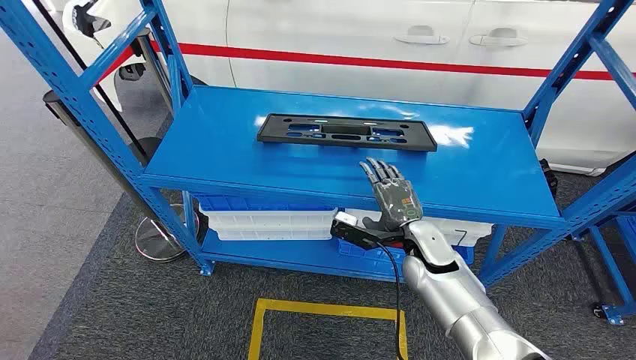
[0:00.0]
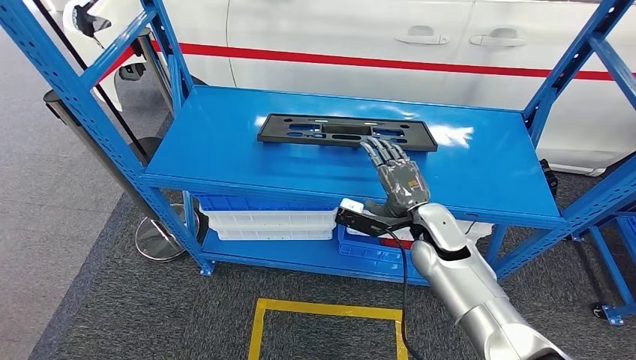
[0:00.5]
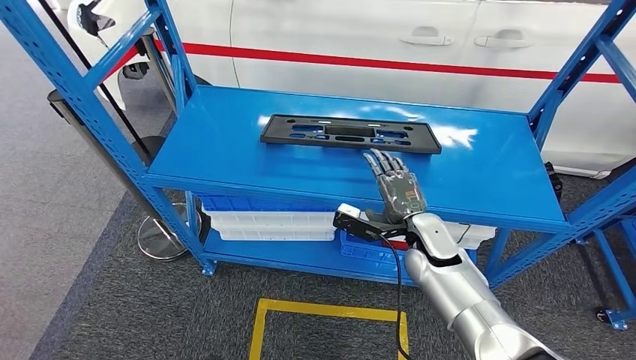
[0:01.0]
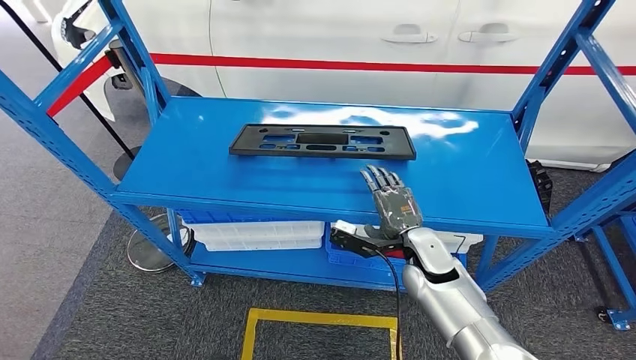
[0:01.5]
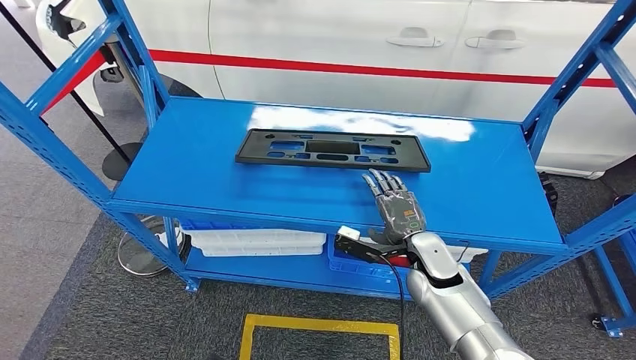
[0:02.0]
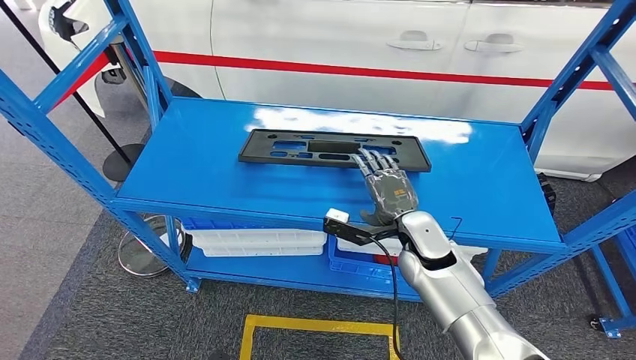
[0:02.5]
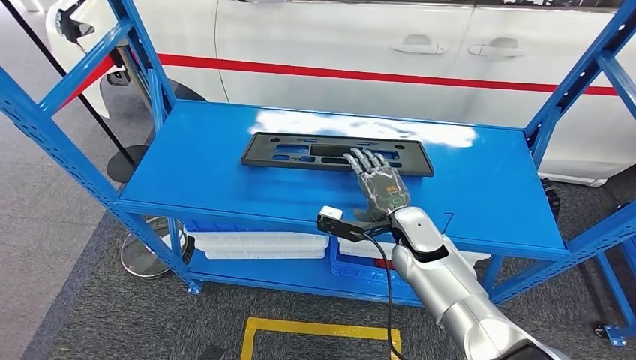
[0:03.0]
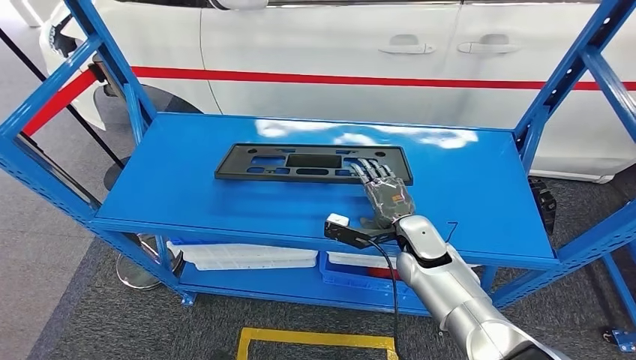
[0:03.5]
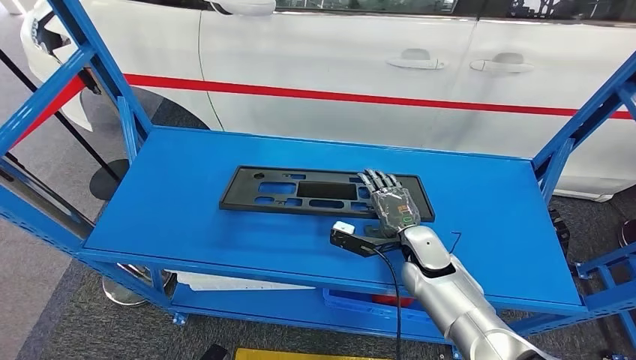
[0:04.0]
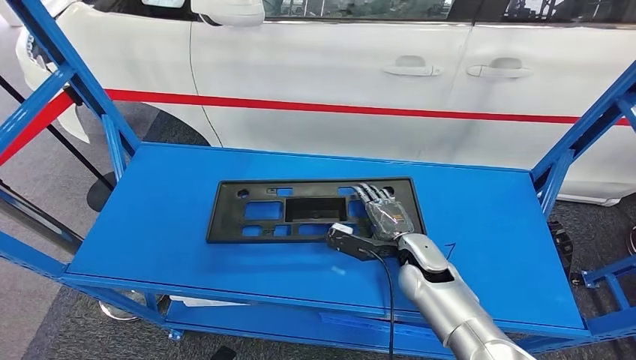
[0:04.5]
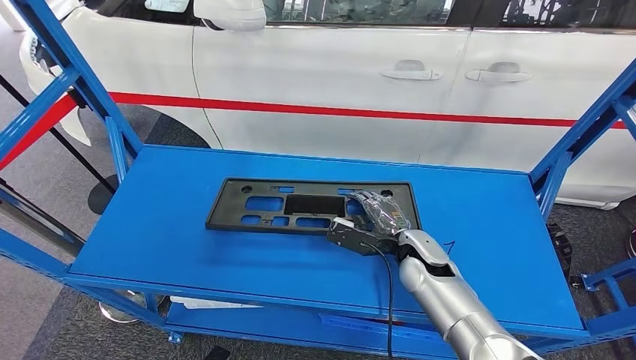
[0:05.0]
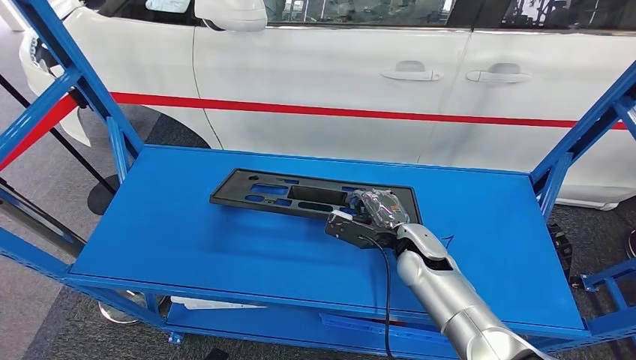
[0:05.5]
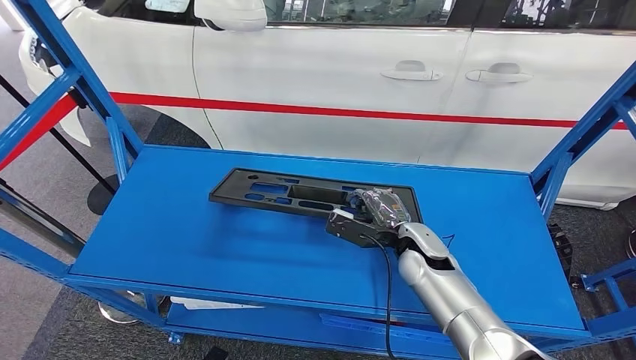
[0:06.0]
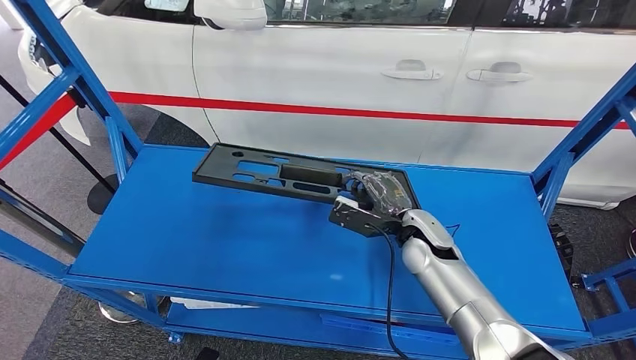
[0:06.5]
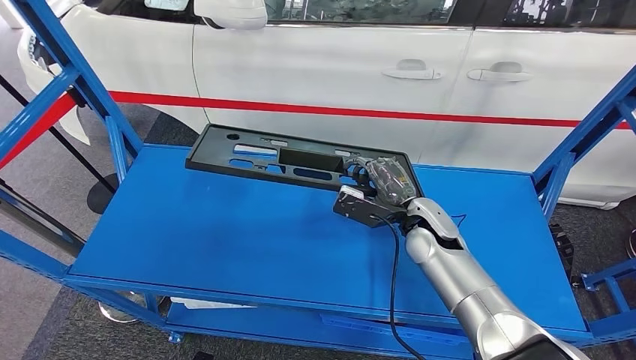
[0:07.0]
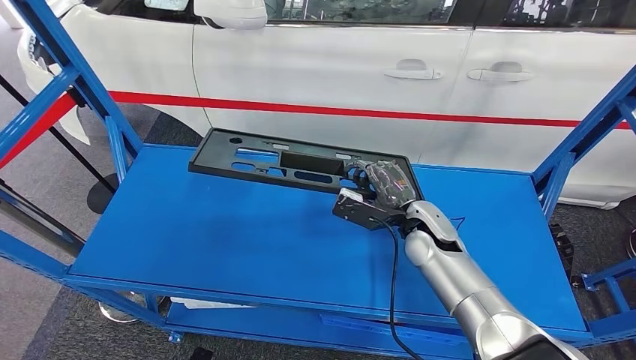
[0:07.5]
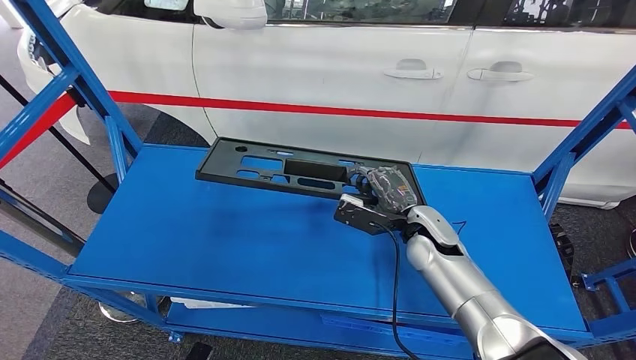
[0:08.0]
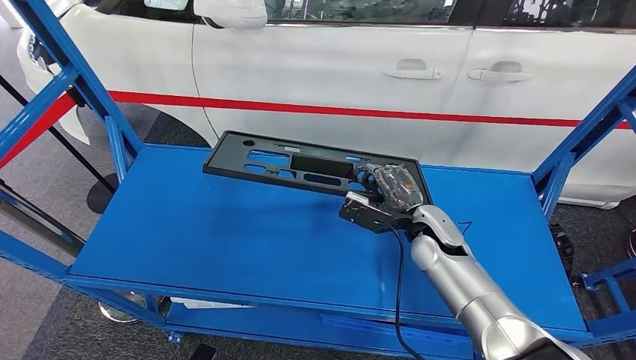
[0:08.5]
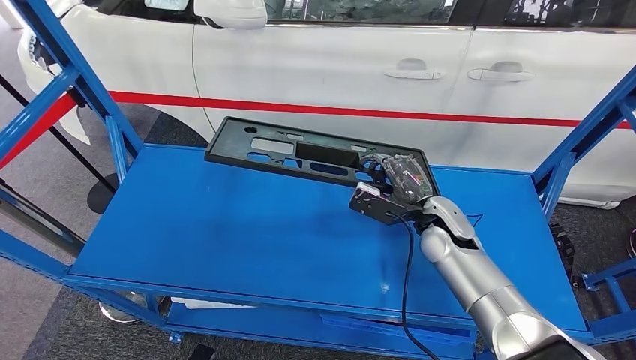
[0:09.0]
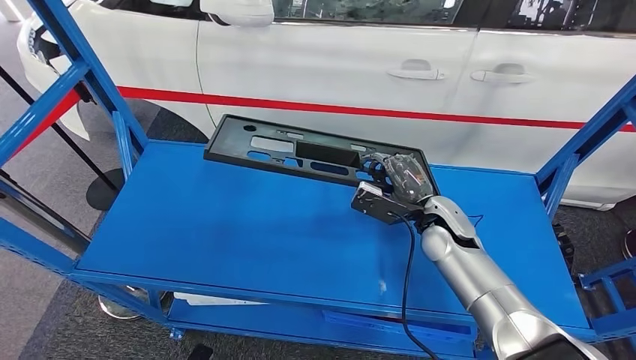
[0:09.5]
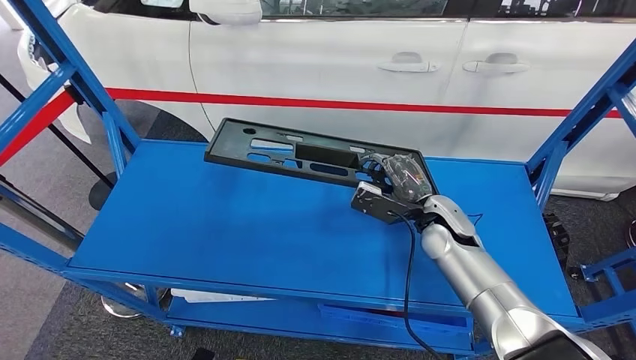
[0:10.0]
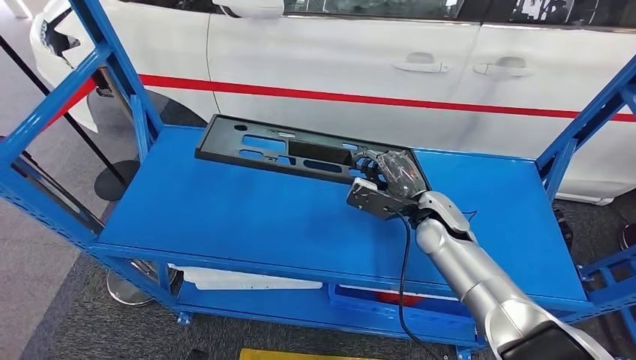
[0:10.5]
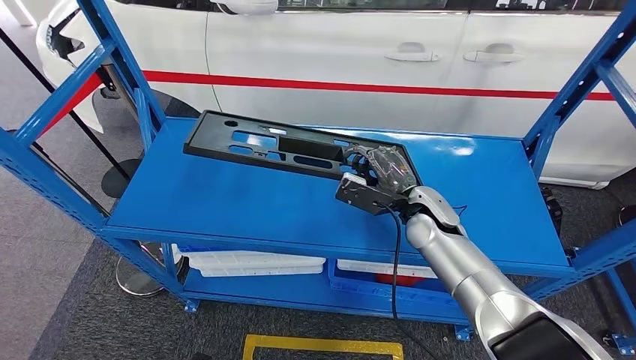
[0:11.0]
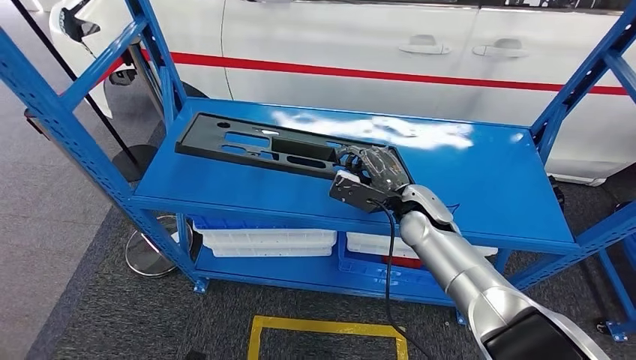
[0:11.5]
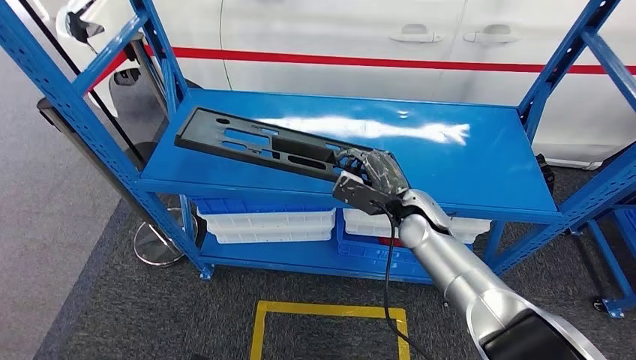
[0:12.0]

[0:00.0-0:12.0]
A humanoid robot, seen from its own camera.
Step, 0:00.0 to 0:07.5: Pick up the large material from the shelf.
0:06.0 to 0:08.0: The hands move only a little.

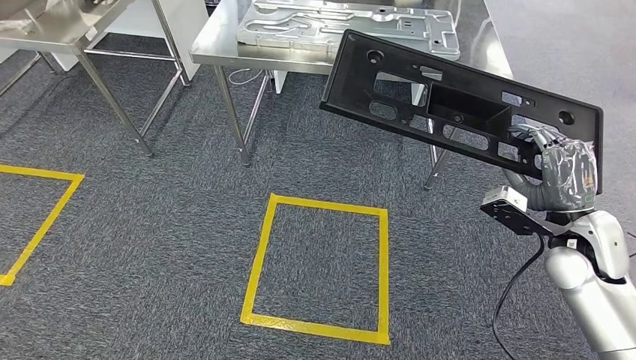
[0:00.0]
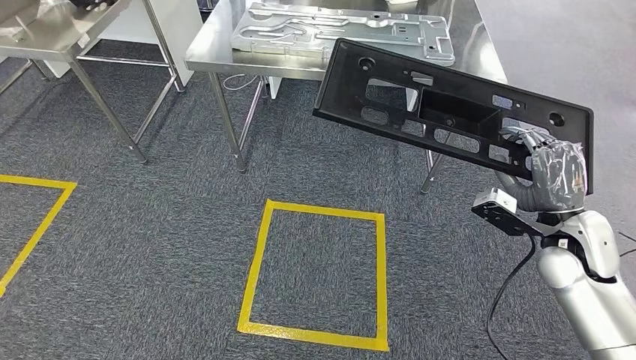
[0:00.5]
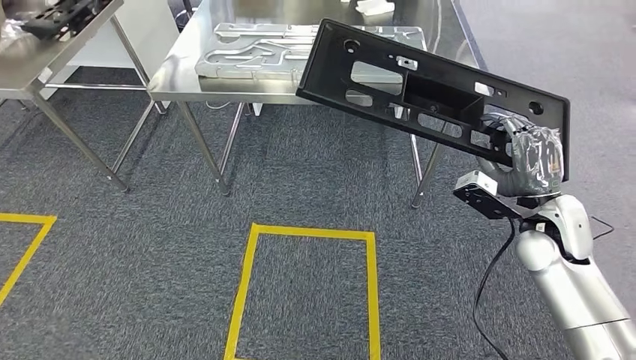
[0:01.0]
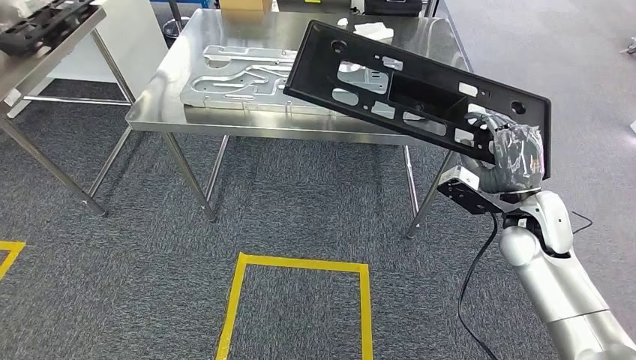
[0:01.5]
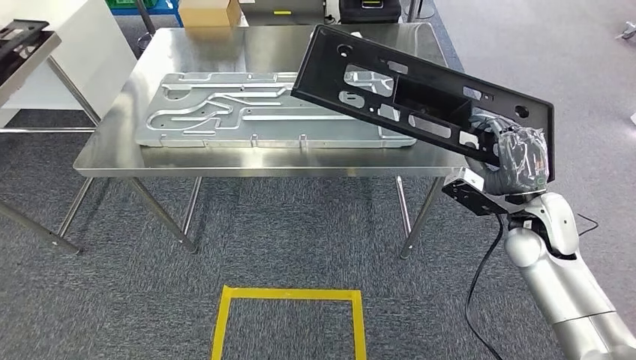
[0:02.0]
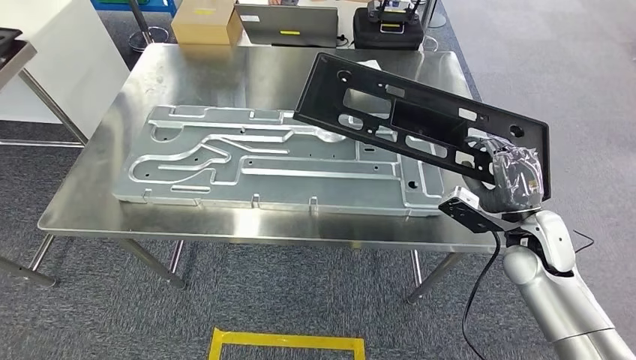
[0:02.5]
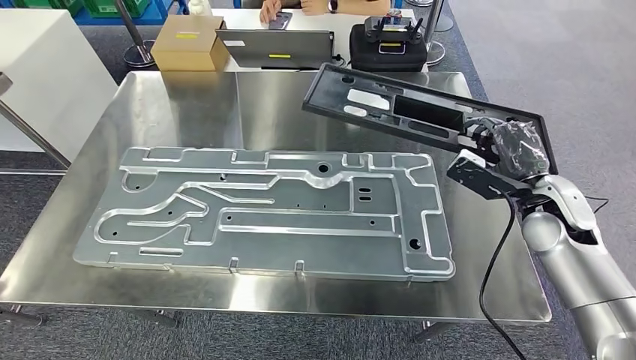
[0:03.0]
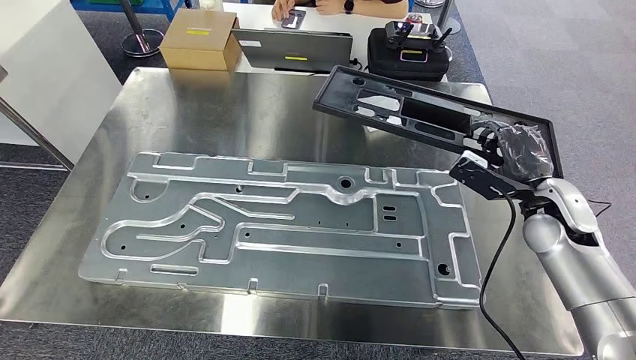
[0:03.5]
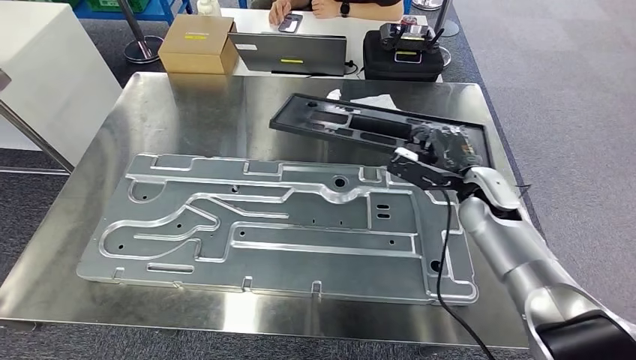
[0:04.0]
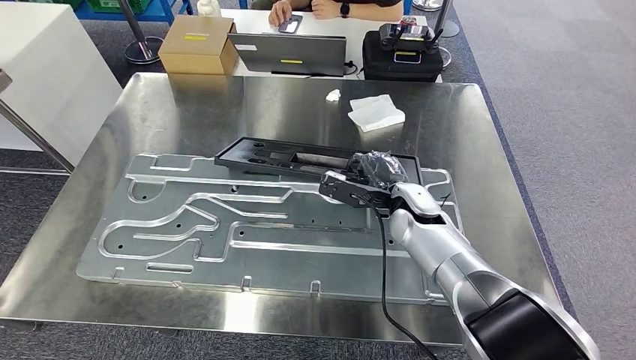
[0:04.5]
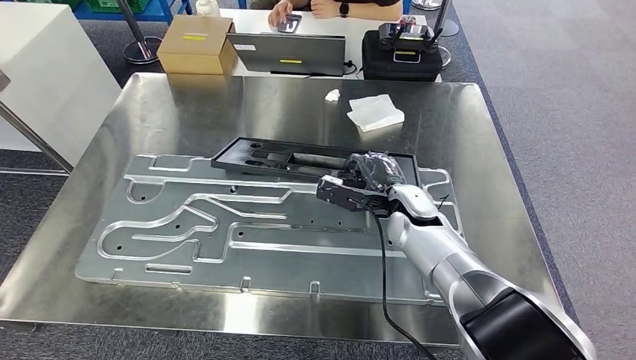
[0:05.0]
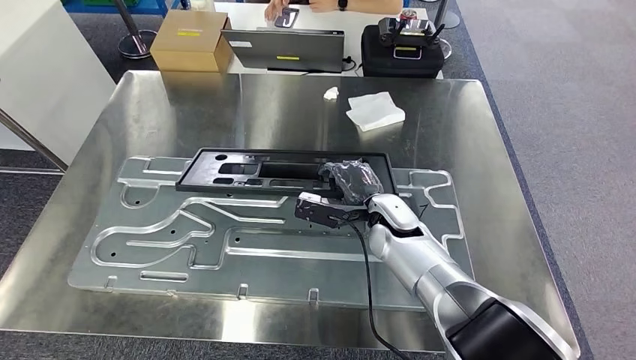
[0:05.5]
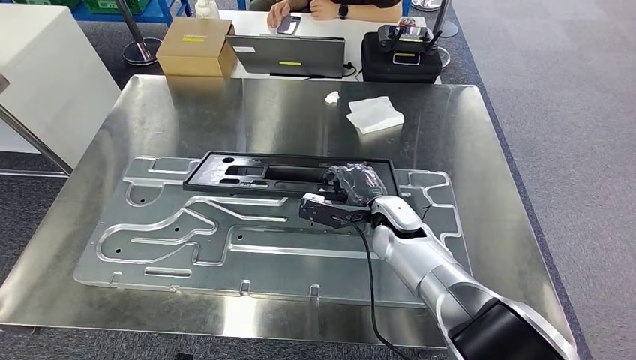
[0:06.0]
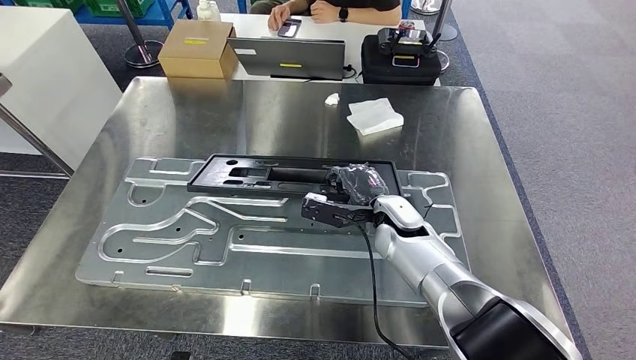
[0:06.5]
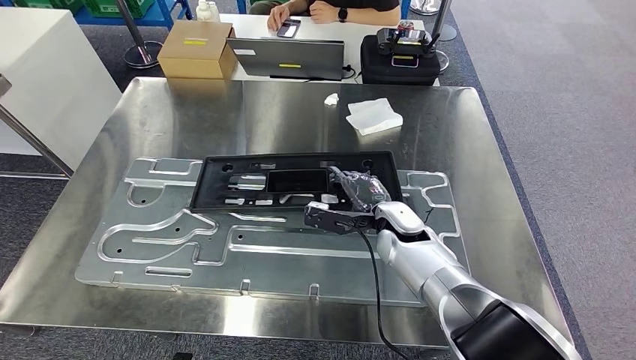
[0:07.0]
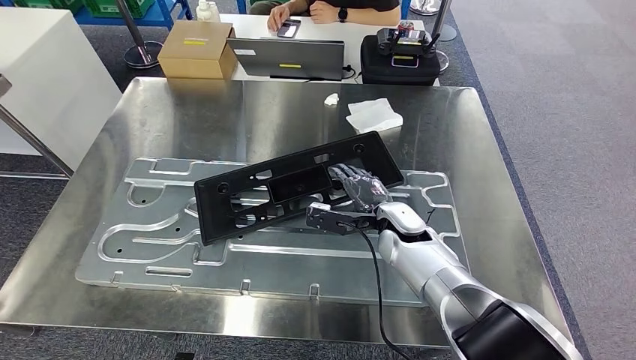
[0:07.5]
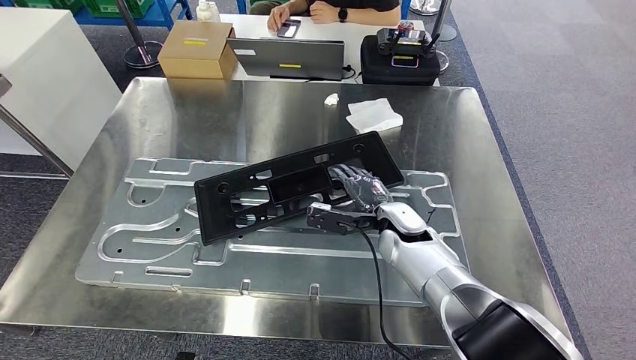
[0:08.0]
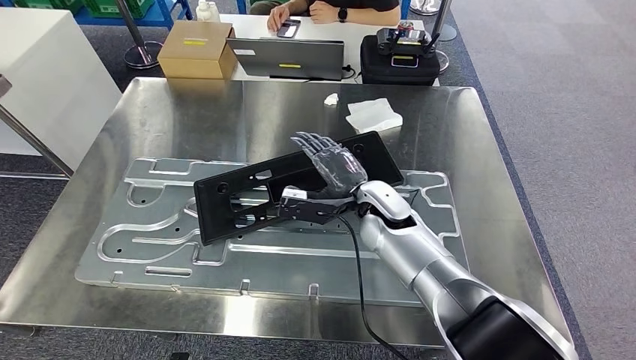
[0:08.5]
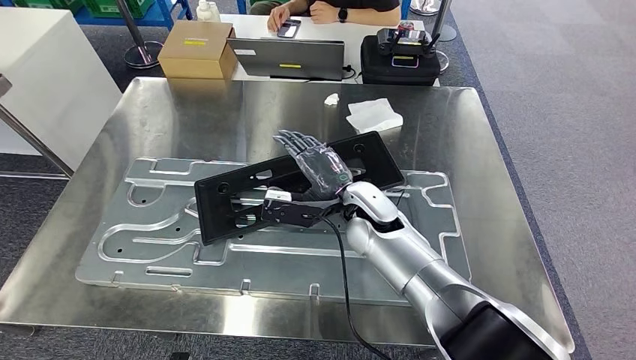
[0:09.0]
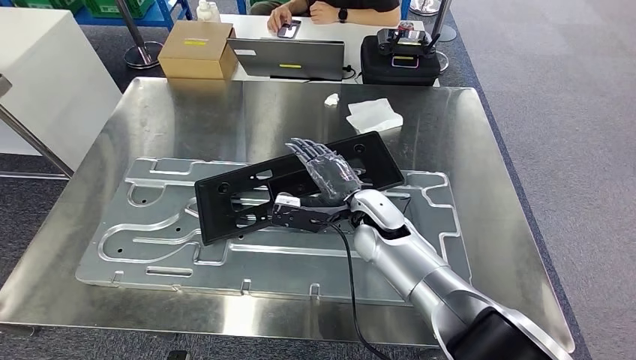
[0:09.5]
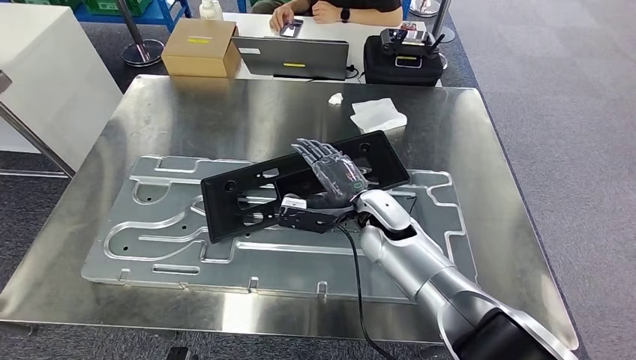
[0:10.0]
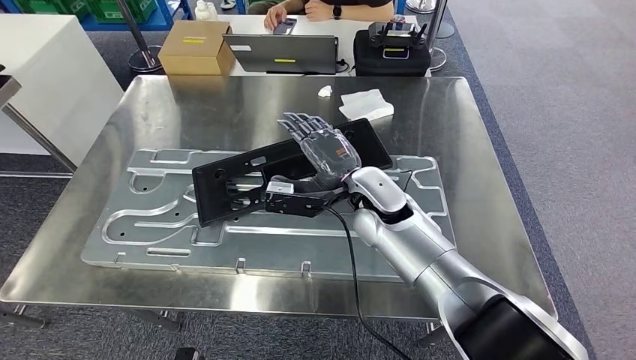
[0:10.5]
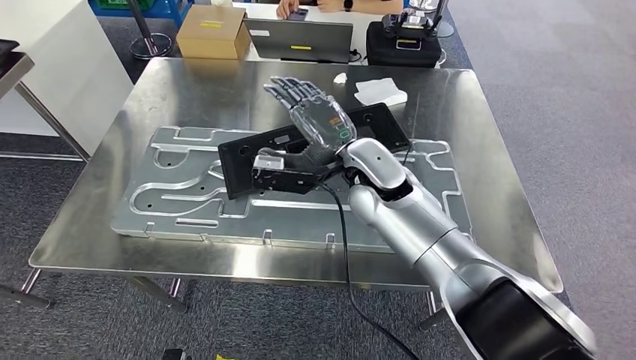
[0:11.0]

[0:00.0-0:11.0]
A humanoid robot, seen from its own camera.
Step, 0:00.0 to 0:03.0: Move the large material to the workbench.
Step, 0:06.0 to 0:10.0: Insert the large material into the corresponding slot on the workbench.
0:07.5 to 0:09.0: The right hand travels to the left and upward by approximately 10 cm.
